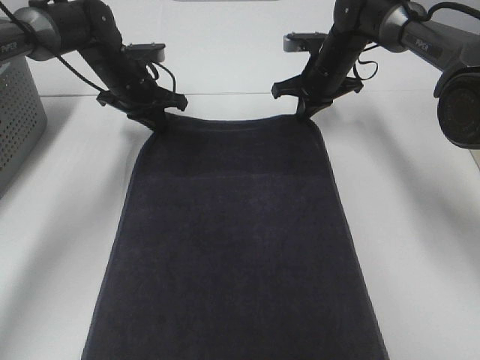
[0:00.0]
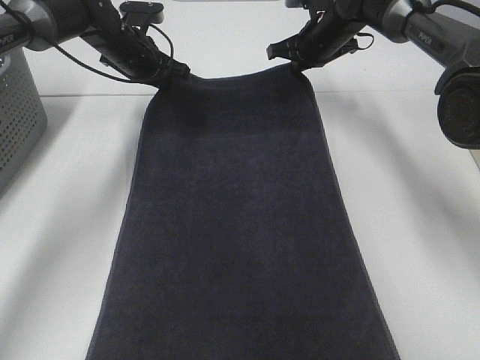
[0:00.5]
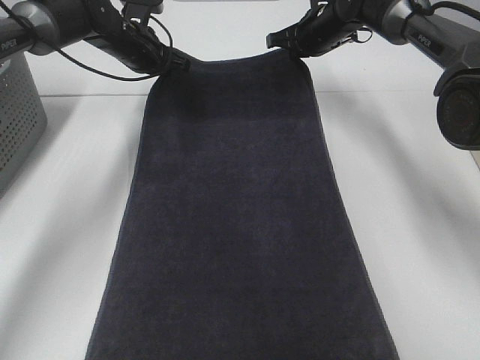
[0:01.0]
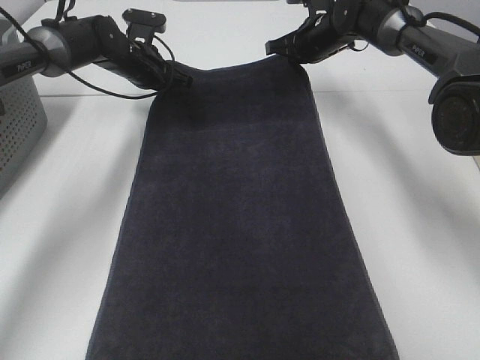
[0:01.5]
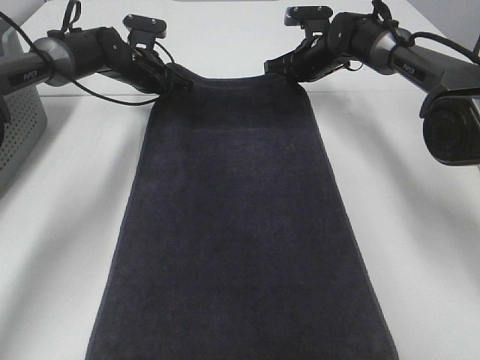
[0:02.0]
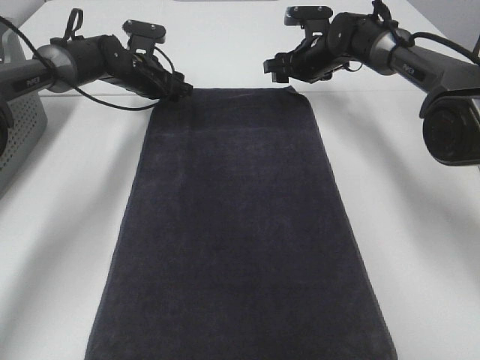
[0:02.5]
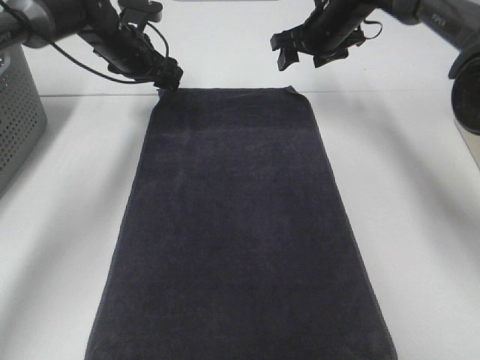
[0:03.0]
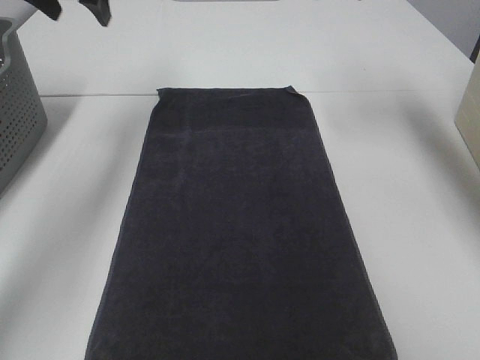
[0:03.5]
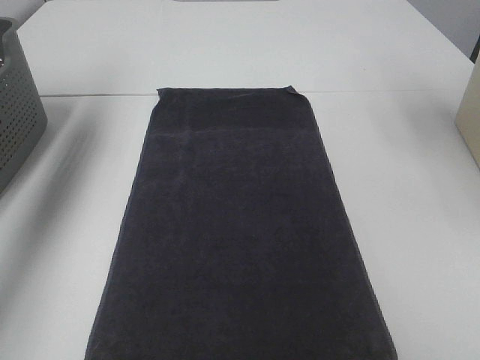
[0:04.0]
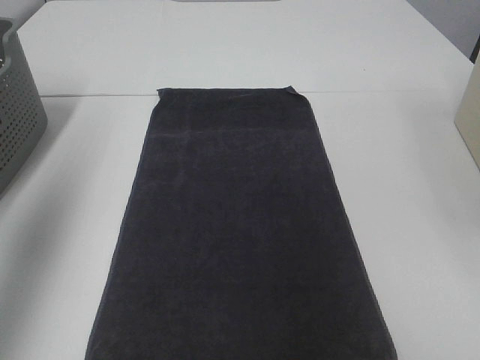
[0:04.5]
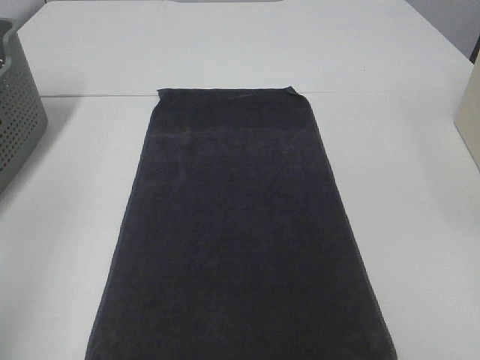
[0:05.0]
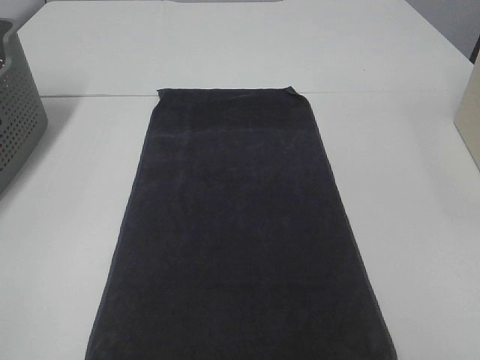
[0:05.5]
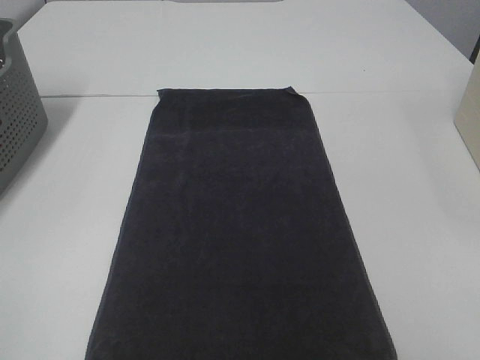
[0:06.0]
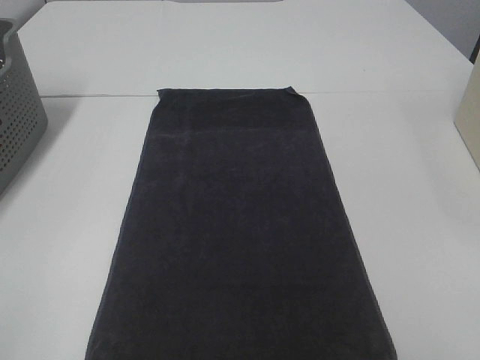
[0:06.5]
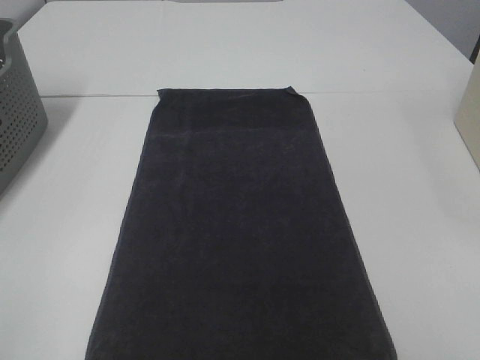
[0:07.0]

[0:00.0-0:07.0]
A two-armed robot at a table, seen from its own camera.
Task of the whole recording: Remove the towel and place it.
0:00.0 to 0:02.0: The left gripper ends up approximately 5 cm from where it was.
0:02.0 to 0:03.5: The two grippers go roughly 25 cm upward and backward. The left gripper opens. The right gripper opens its fingers.
0:03.5 to 0:05.0: Both grippers travel together backward, approximately 40 cm.

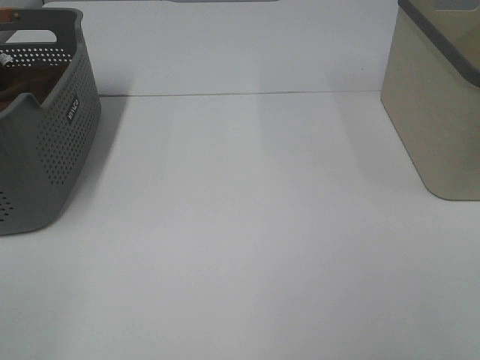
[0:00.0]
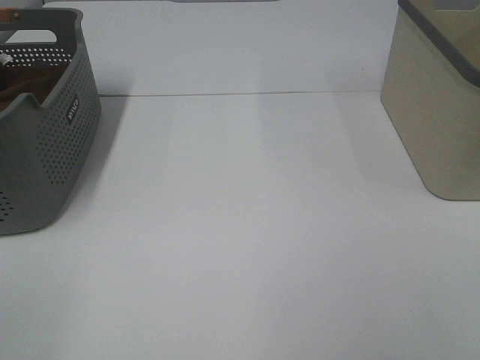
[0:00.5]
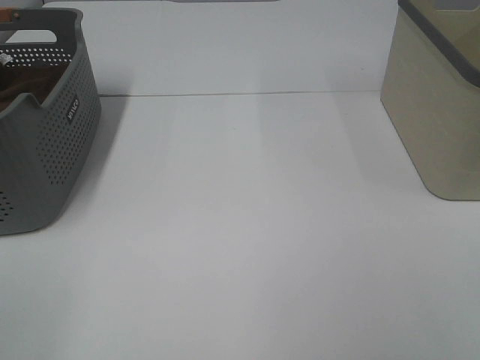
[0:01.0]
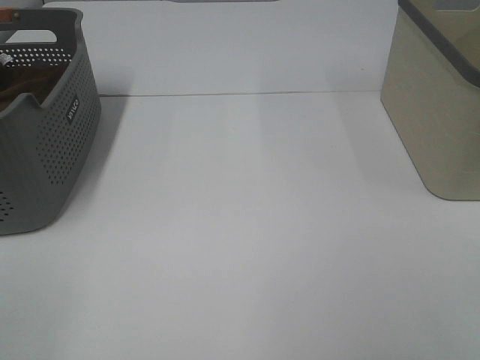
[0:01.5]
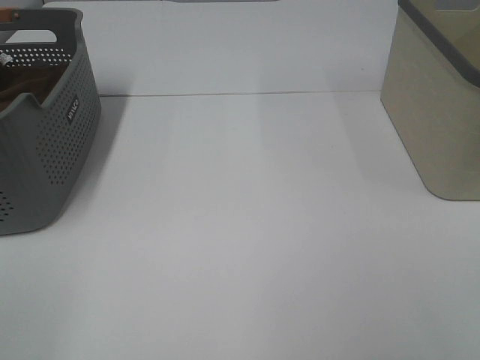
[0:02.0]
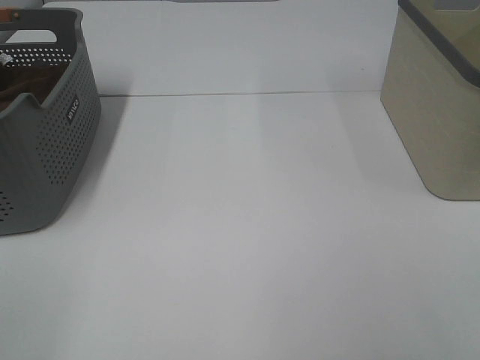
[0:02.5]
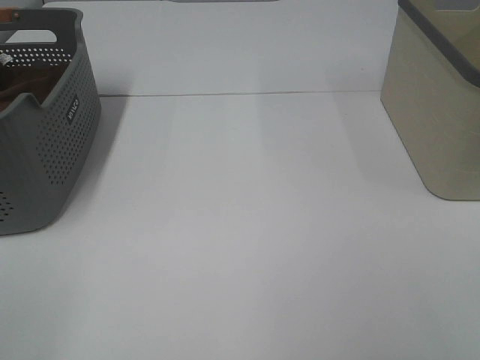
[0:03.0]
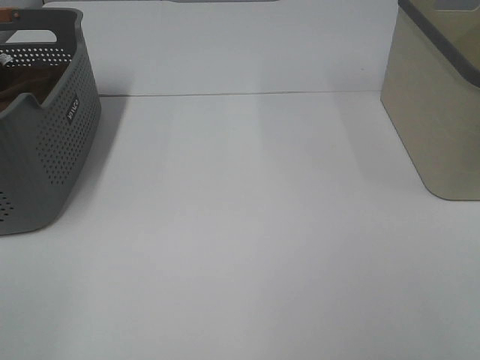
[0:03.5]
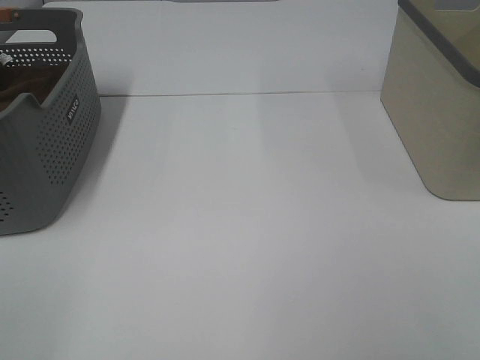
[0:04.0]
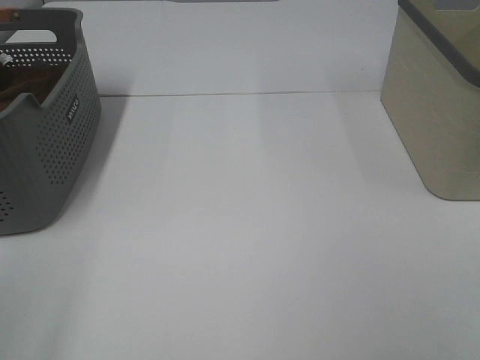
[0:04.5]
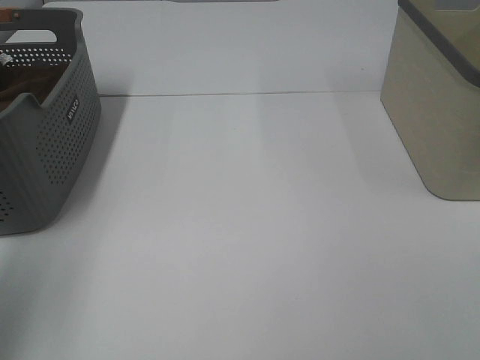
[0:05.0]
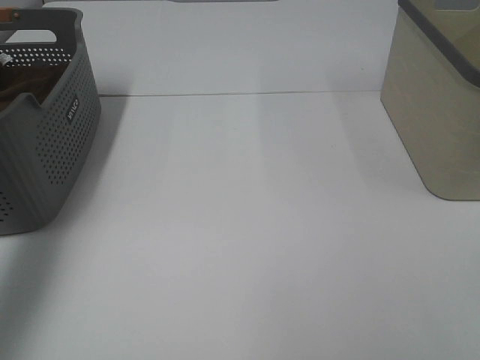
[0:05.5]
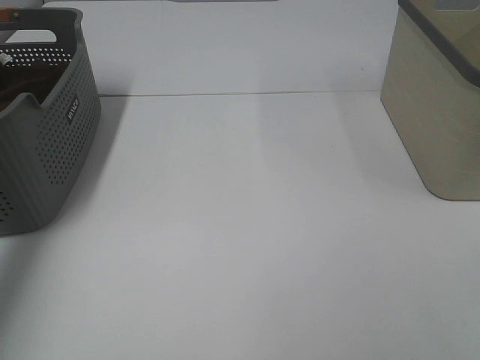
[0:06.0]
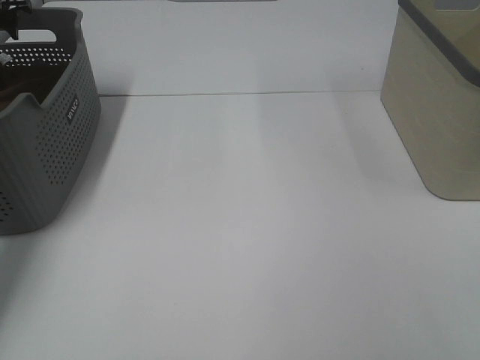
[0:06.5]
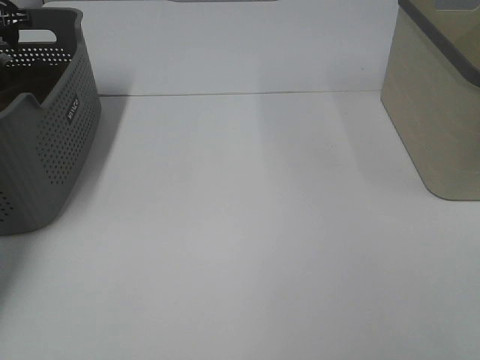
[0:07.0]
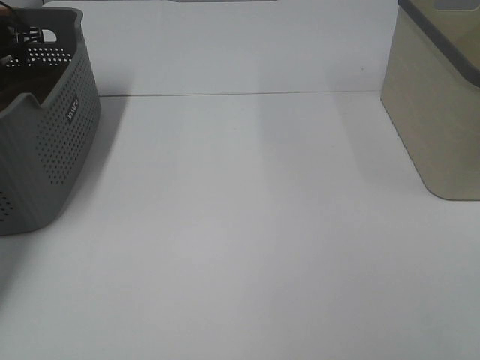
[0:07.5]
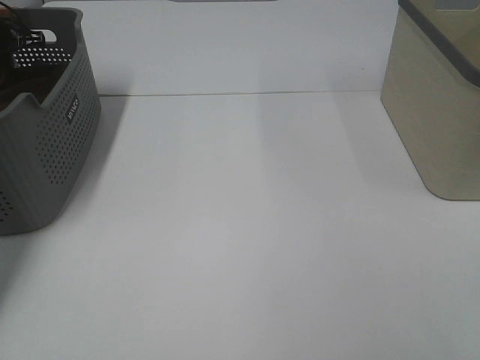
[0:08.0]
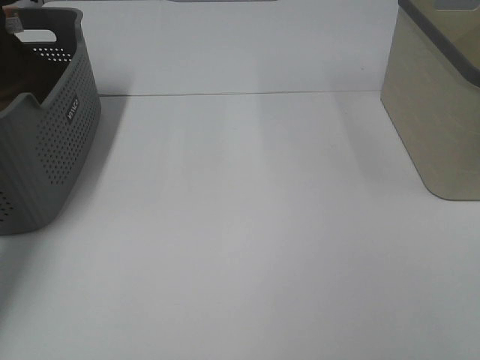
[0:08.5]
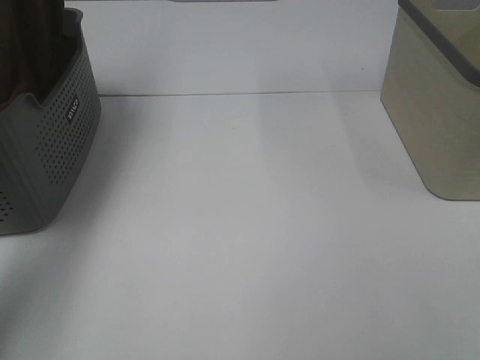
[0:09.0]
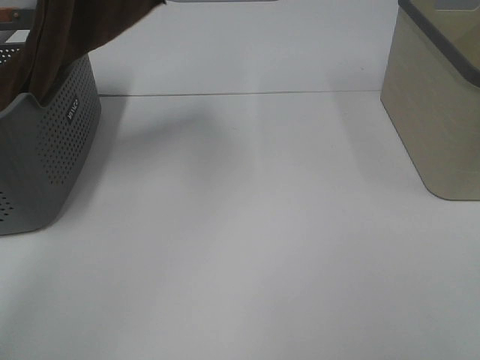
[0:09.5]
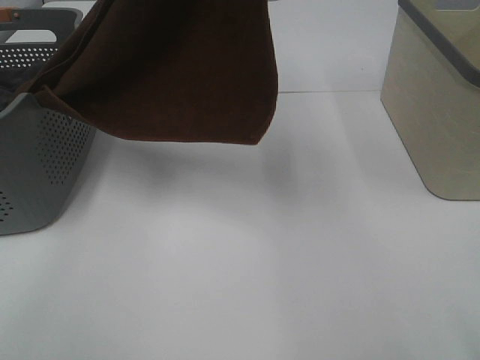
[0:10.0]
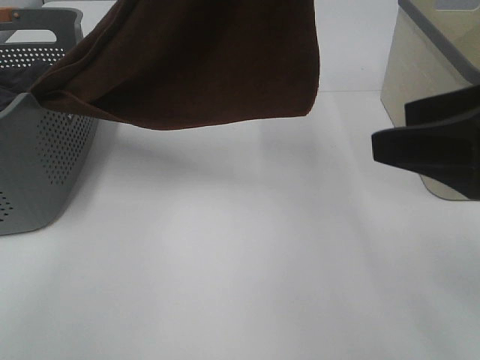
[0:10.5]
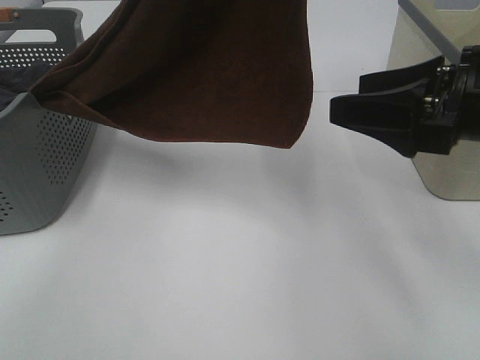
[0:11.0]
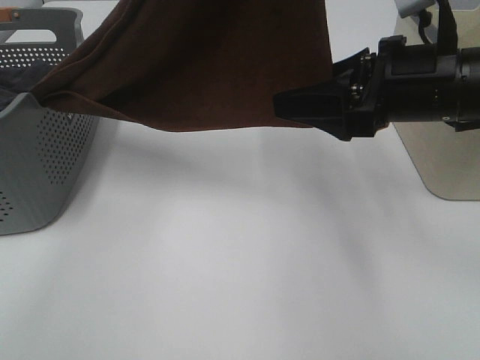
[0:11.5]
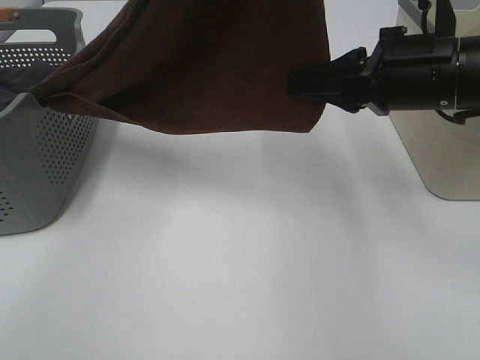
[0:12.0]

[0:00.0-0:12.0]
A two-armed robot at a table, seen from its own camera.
Task of the whole recording: Remove the towel and place it.
Step, 0:09.0 to 0:11.5: Right hand: grab a corner of the brown towel and straighten it.
0:00.0 to 0:04.0: Both grippers stay put.
0:04.0 to 0:06.0: The left gripper is displaced forward by about 40 cm.
0:06.0 to 0:08.0: The left gripper is displaced forward and downward by approximately 15 cm, and closes.
0:08.0 to 0:10.0: The right gripper moves forward, roughly 5 cm. The left gripper travels to the right, upward and backward by approximately 50 cm.
0:10.0 to 0:12.0: The right gripper shifts some 20 cm forward, and closes.

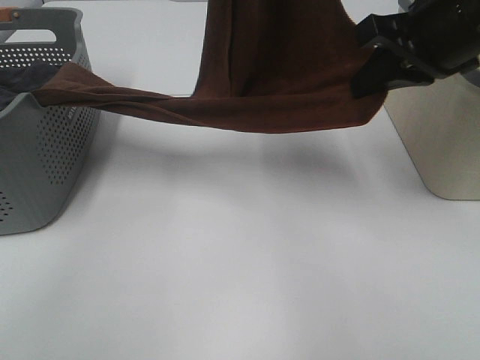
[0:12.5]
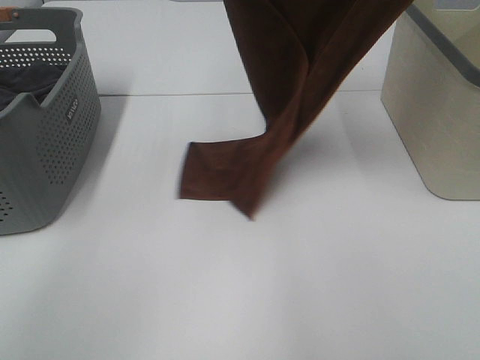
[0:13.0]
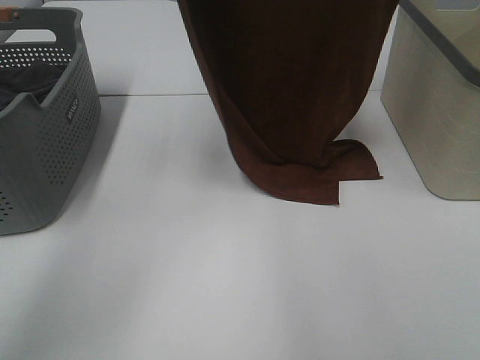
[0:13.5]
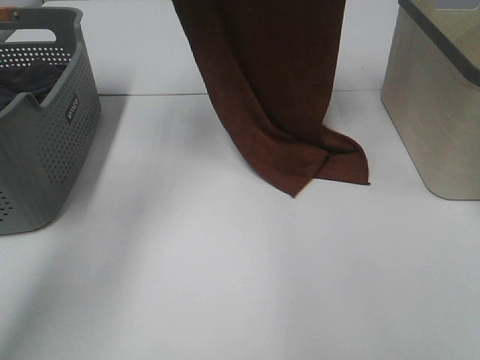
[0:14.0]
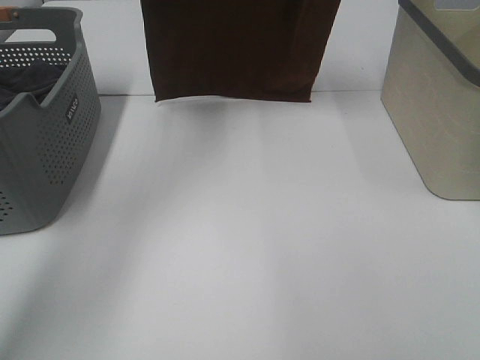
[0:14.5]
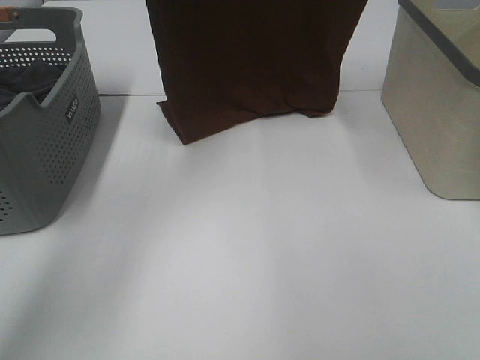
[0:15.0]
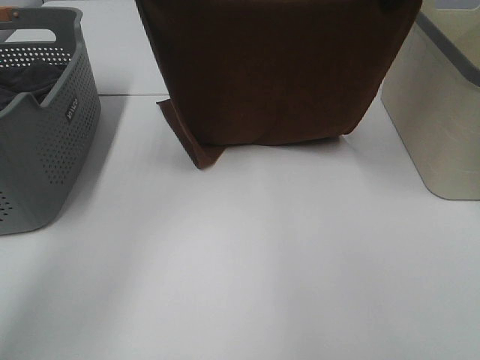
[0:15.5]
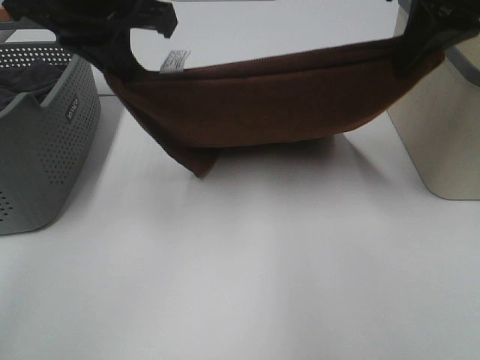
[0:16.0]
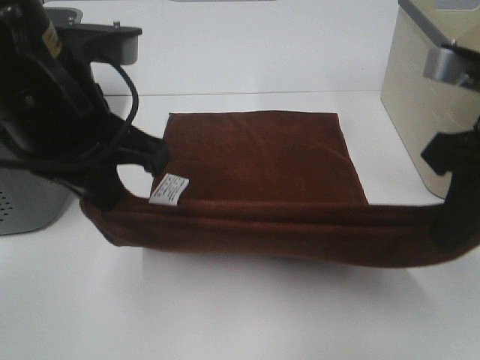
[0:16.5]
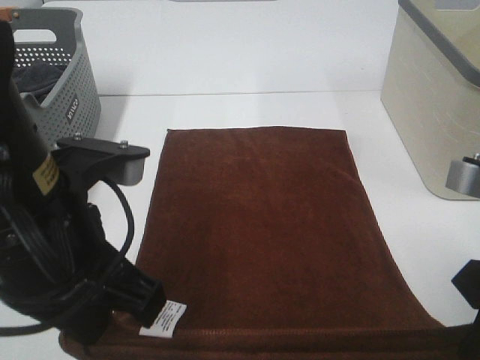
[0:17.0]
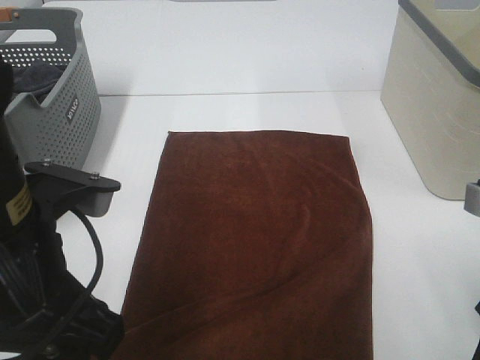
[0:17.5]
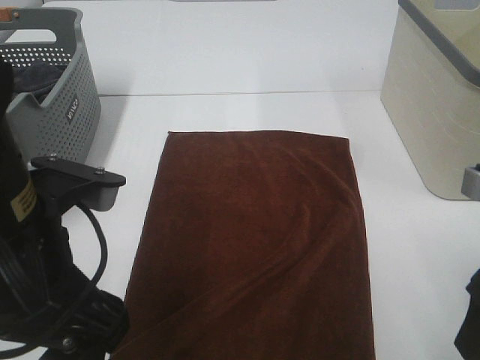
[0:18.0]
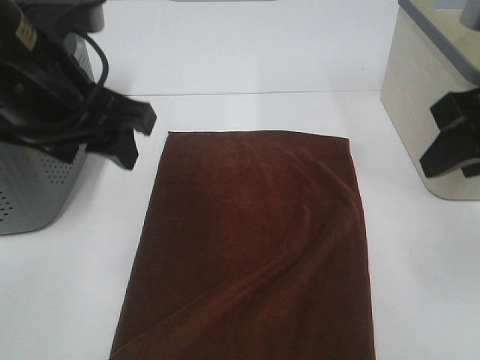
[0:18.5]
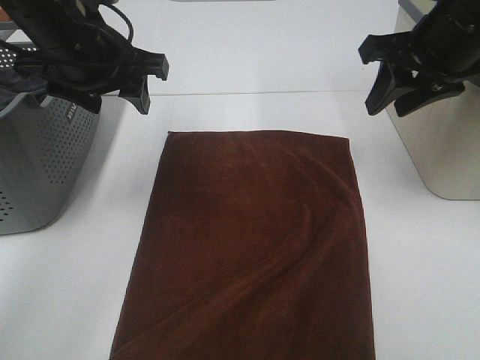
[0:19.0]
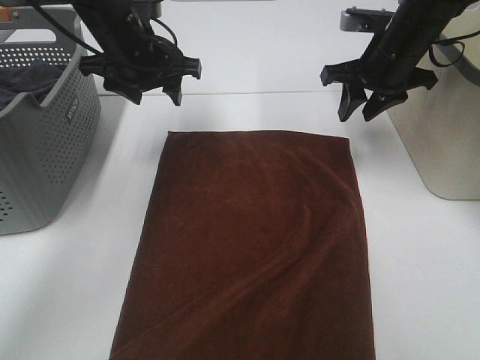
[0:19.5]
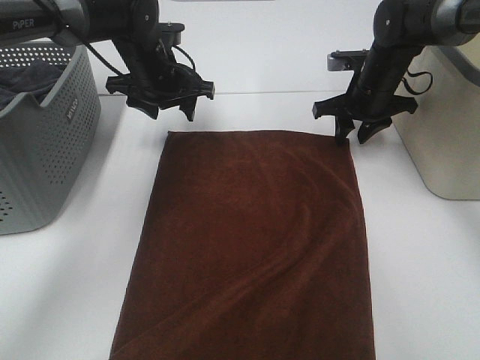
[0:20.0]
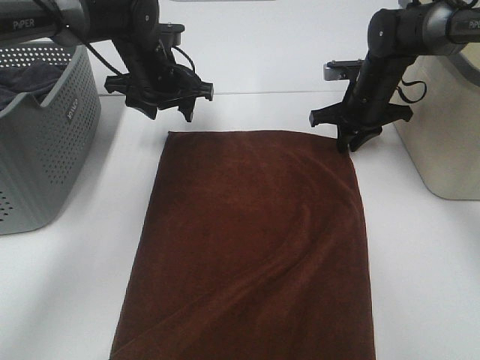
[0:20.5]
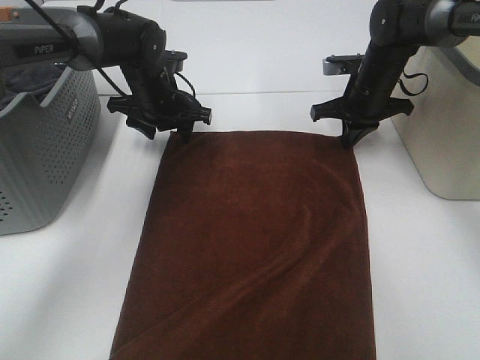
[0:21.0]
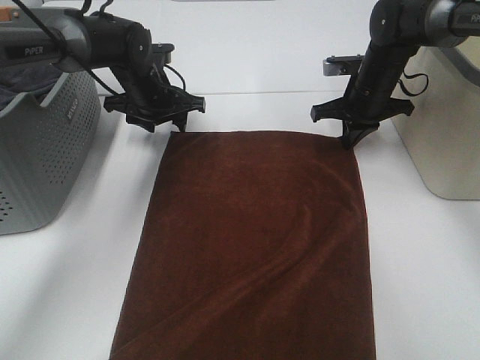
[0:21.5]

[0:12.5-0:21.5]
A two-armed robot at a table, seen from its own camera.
Task of the whole recording: Remove the towel and place it.
Step, 0:12.5 to 0:14.0: Left hand: spread the brown towel flat on the table.
Step, 0:12.5 to 0:14.0: Right hand: spread the brown towel flat on the table.
Step, 0:14.5 to 0:19.5: Left hand:adjust the brown towel.
Step, 0:14.5 to 0:19.5: Right hand:adjust the brown towel.
0:12.5 to 0:14.5: The left gripper goes roughly 15 cm to the left and forward. The right gripper heads upward and forward, covering approximately 20 cm.
0:14.5 to 0:17.0: The grippers both shift backward and downward by roughly 40 cm.
0:17.0 to 0:19.5: Both grippers move forward, some 30 cm. The right gripper opens up. The left gripper opens its fingers.
0:19.5 to 0:21.5: The right gripper travels downward by approximately 5 cm, and closes; the left gripper travels downward and forward by approximately 10 cm.
